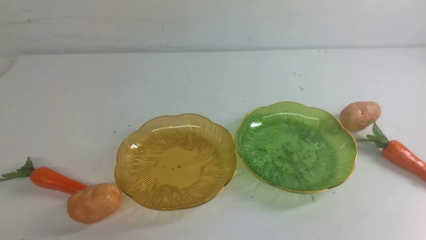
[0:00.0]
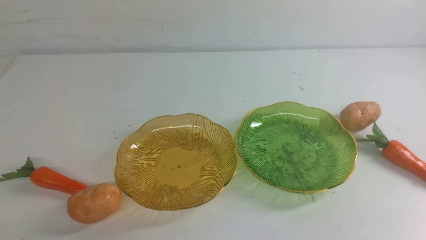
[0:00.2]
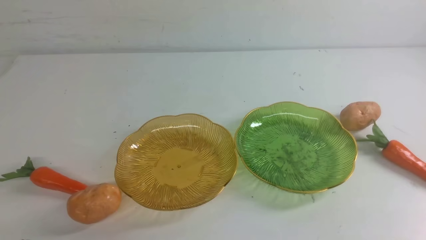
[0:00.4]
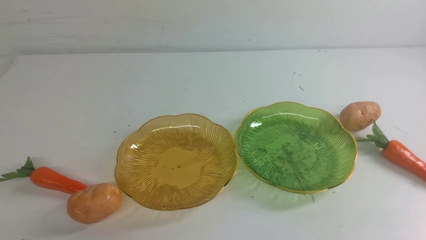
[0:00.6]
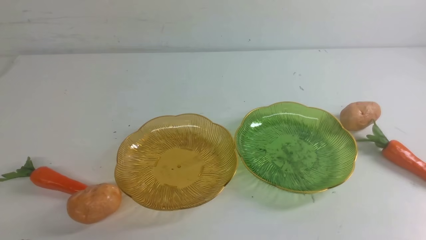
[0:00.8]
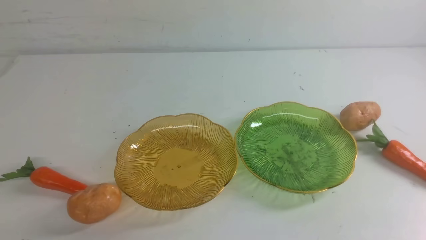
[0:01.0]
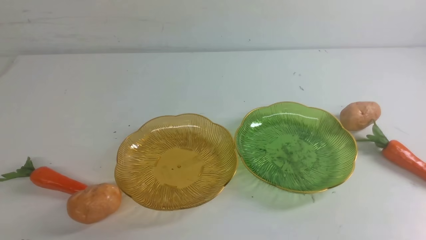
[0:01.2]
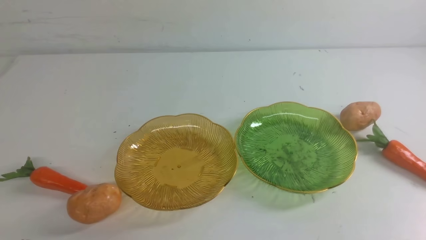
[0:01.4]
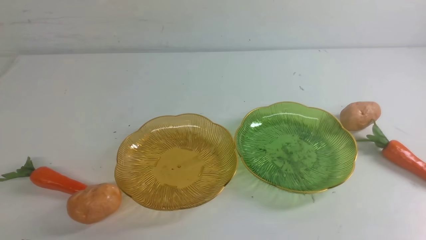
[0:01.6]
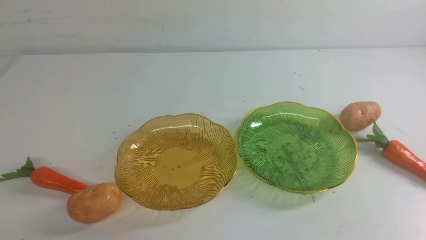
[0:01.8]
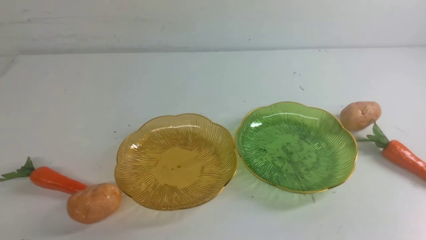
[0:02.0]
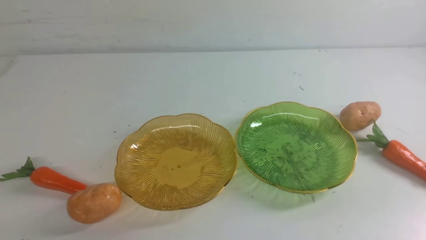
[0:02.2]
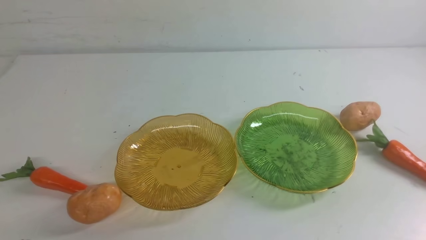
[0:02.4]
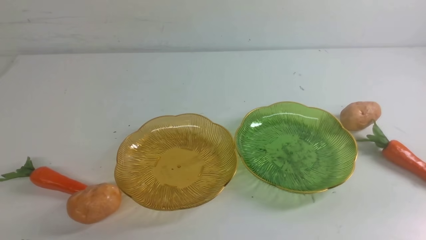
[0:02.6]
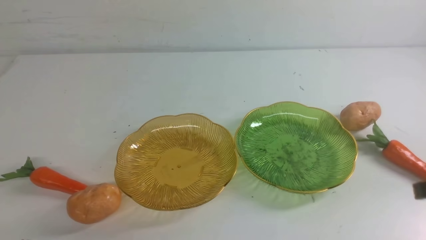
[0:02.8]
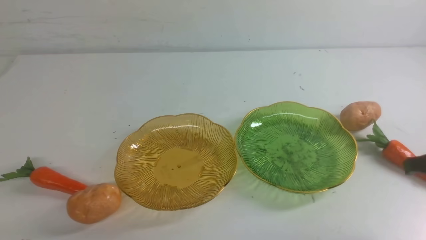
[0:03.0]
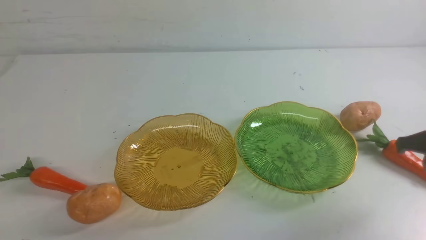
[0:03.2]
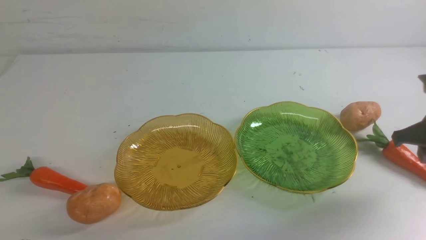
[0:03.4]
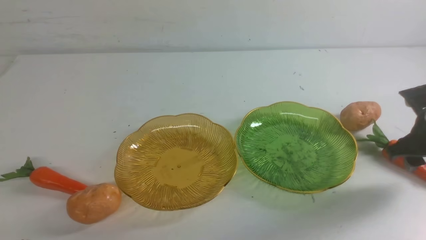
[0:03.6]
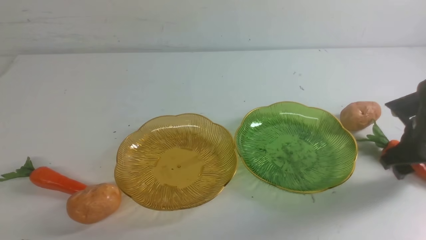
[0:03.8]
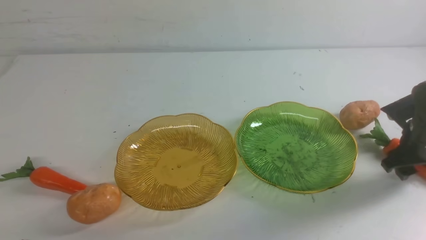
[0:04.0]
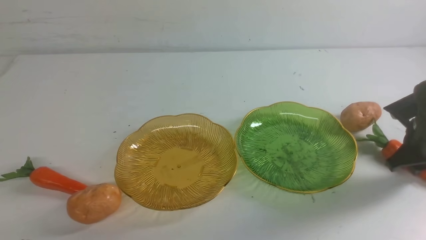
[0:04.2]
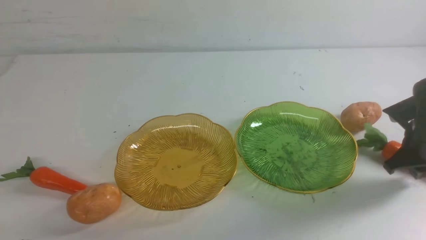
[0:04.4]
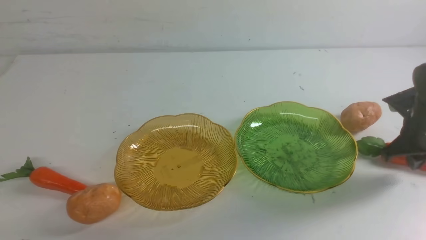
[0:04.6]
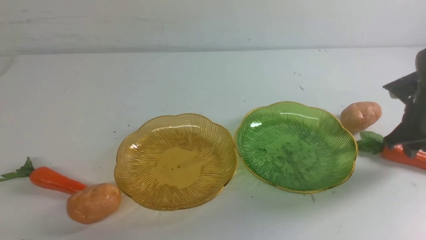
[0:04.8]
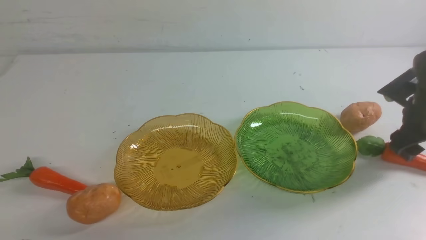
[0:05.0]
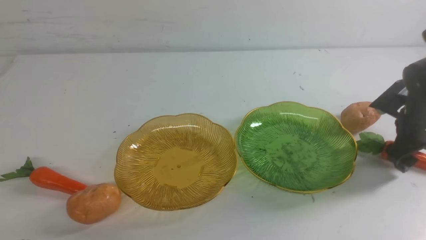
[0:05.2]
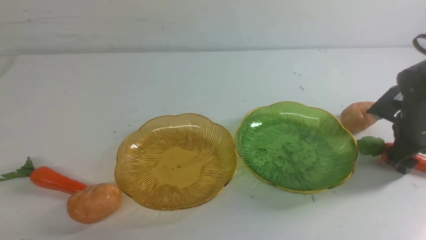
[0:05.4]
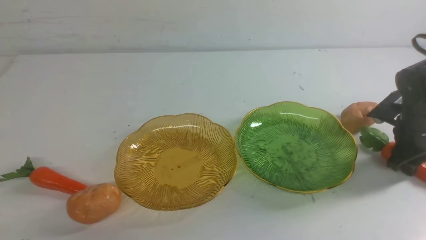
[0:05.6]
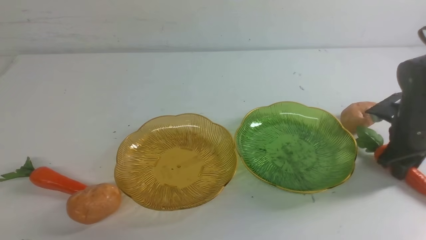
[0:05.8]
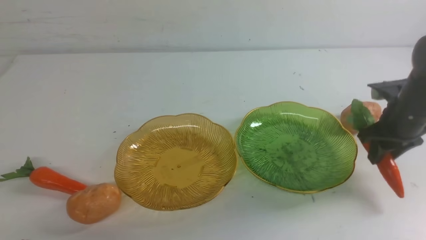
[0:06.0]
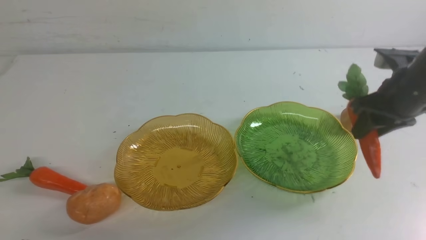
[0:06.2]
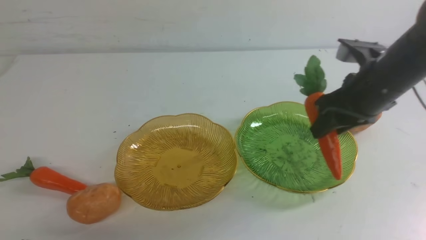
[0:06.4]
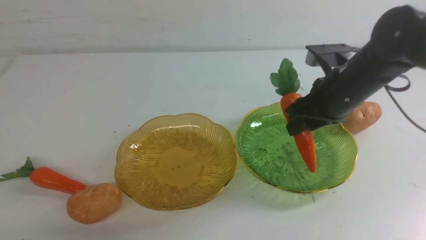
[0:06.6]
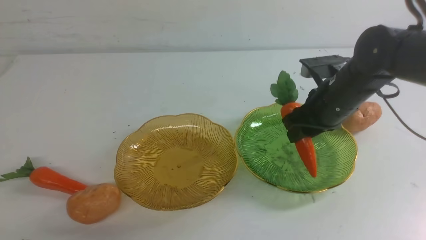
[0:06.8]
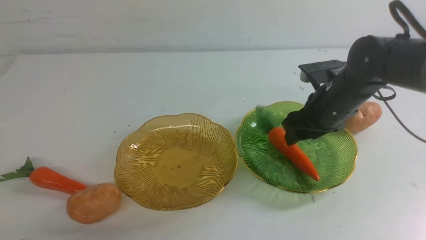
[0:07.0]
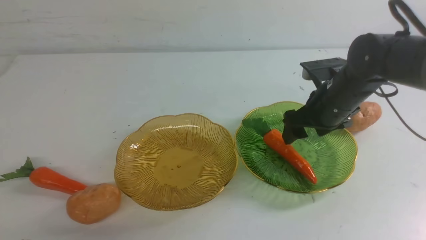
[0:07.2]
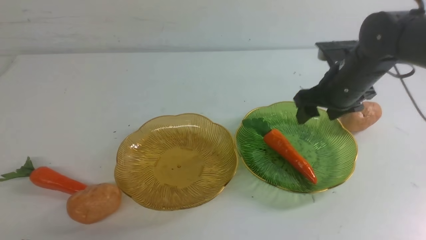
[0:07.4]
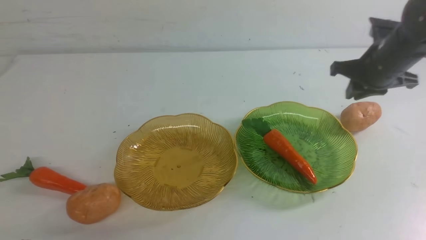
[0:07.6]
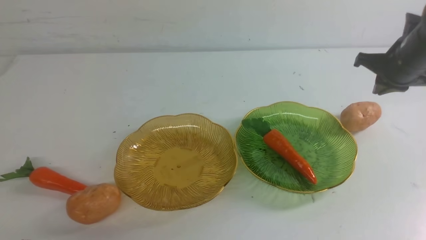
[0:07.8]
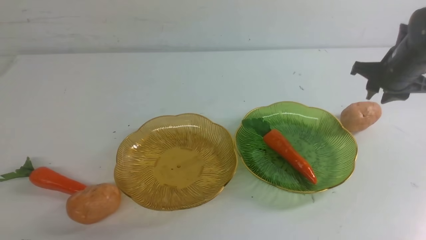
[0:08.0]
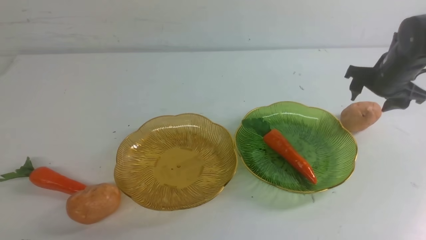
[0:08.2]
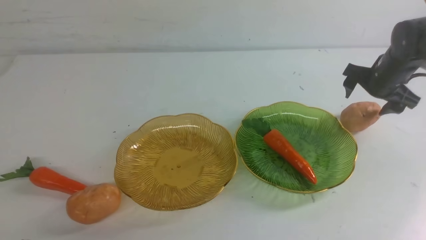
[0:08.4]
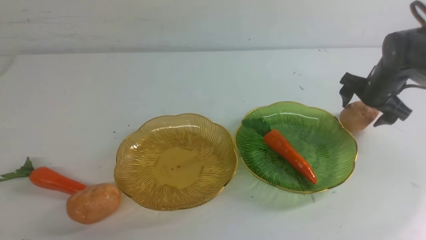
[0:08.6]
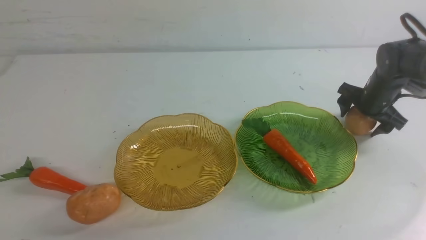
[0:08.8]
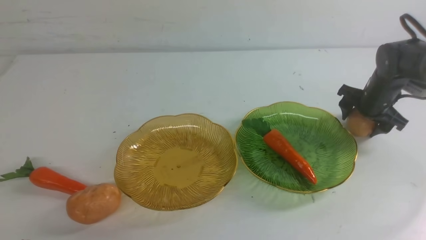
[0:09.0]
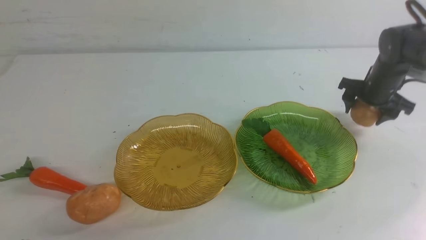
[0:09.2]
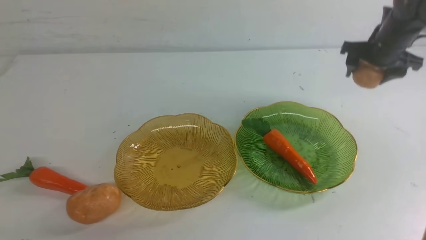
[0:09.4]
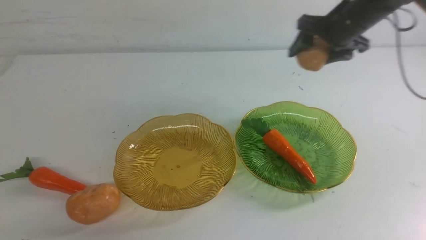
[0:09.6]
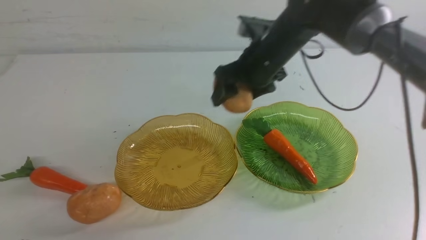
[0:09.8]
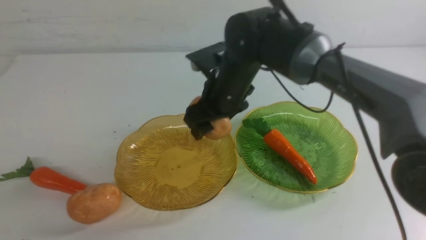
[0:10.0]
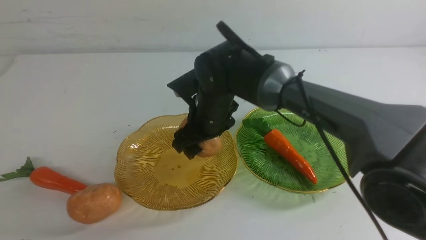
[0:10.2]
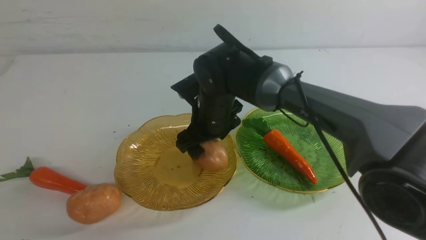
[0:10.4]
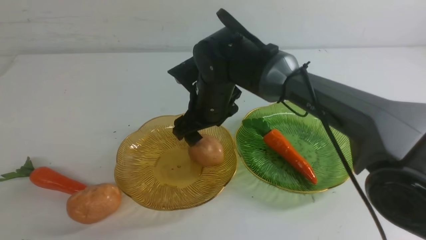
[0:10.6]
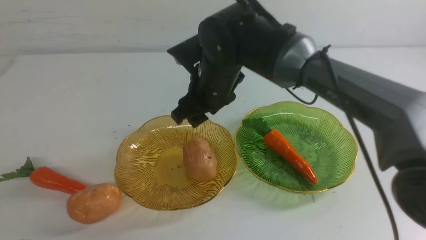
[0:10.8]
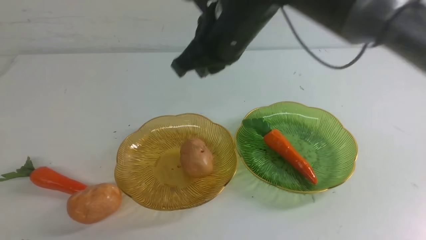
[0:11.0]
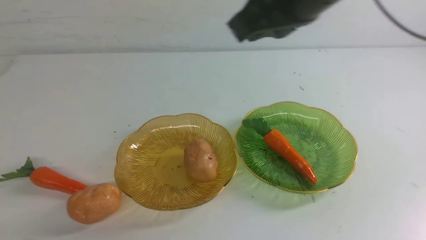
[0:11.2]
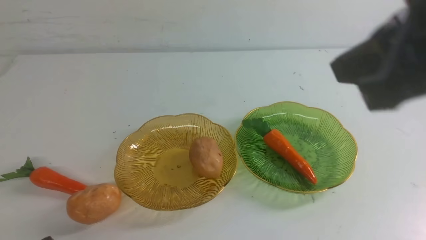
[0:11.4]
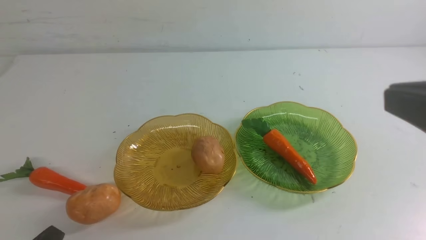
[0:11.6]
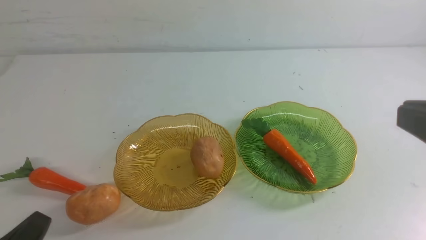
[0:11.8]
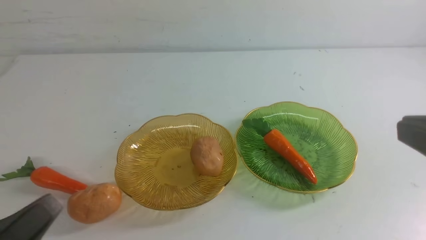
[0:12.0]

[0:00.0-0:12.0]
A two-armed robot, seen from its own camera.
Step, 0:00.0 to 0:07.2: use the right arm to grab a carrot and put it into the right plate.
Step, 0:07.4 to 0:10.6: Grab a potato with your right arm and put it on the left plate.
0:03.0 to 0:04.4: The right gripper shifts approximately 15 cm forward and downward, and opens, then closes again.
0:04.4 to 0:06.0: The right gripper shifts by some 5 cm, and opens, then closes again.
0:06.0 to 0:07.6: The right gripper shifts some 5 cm forward, reaches roughly 10 cm to the left, then returns, and opens, then closes once more.
0:07.6 to 0:09.0: The right gripper travels downward and forward by roughly 10 cm, and opens.
0:09.0 to 0:10.4: The right gripper heads to the left, covering some 30 cm.
0:10.4 to 0:12.0: The right gripper shifts some 40 cm backward, to the right and upward, and closes up, while the left gripper is displaced upward by roughly 10 cm.

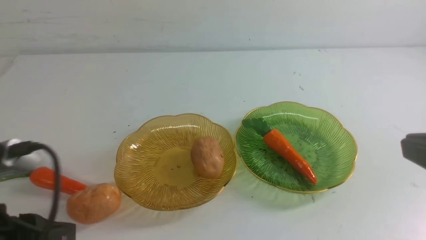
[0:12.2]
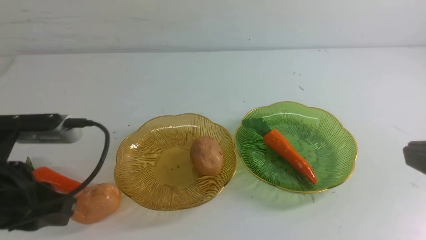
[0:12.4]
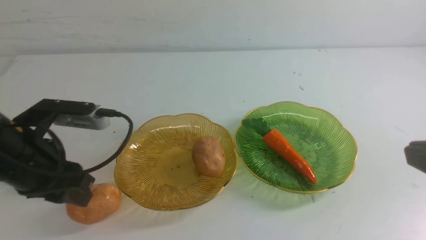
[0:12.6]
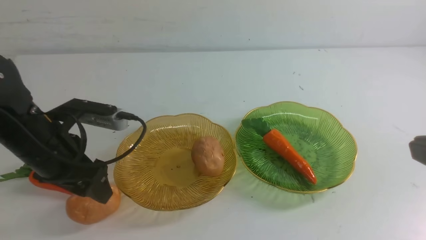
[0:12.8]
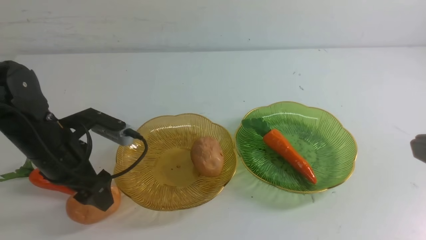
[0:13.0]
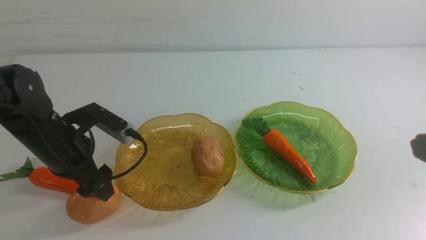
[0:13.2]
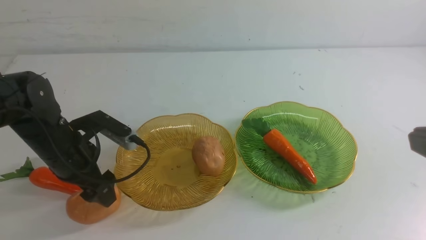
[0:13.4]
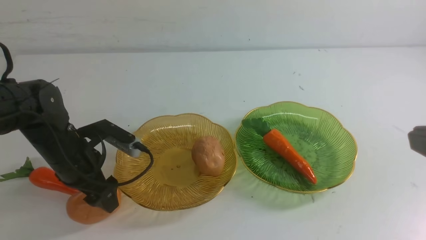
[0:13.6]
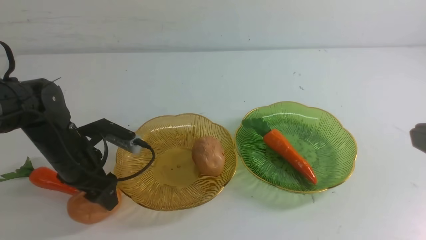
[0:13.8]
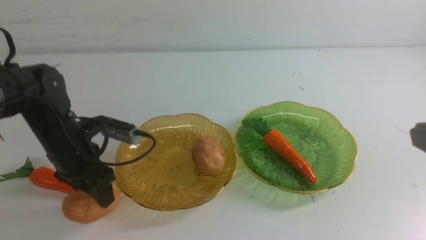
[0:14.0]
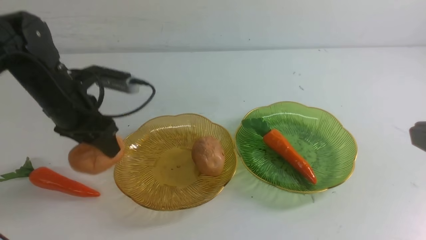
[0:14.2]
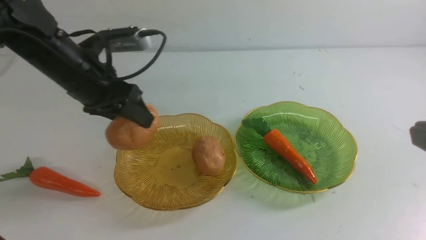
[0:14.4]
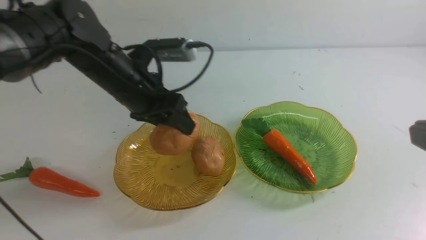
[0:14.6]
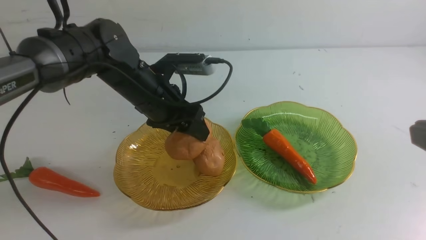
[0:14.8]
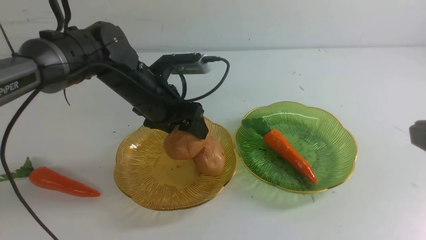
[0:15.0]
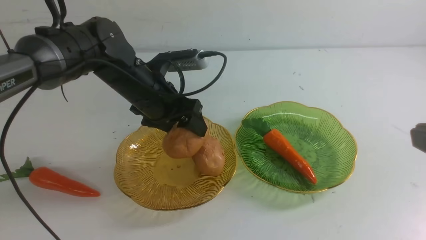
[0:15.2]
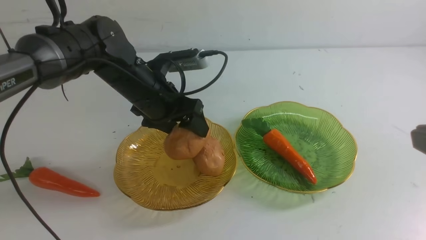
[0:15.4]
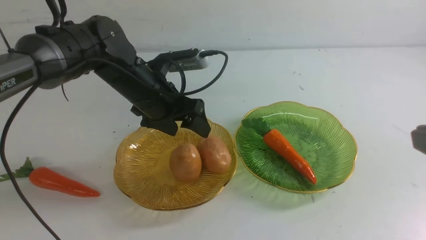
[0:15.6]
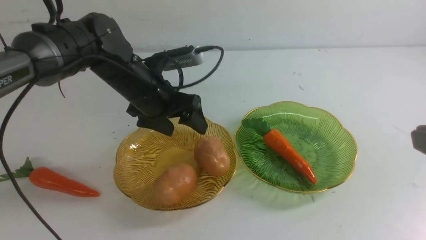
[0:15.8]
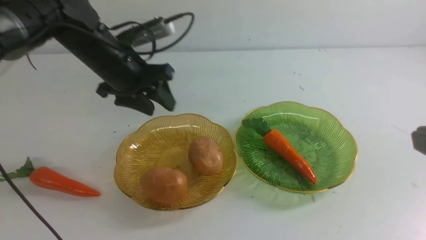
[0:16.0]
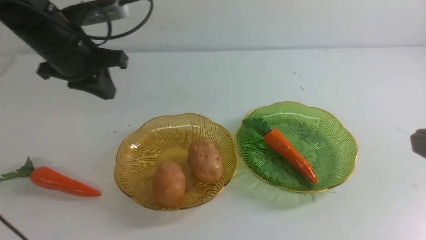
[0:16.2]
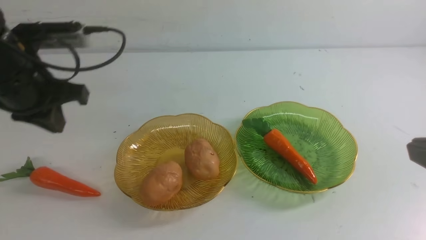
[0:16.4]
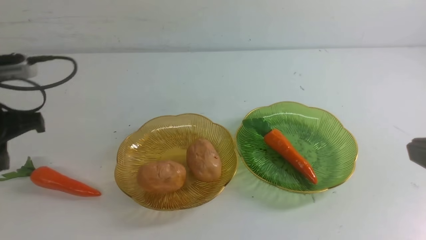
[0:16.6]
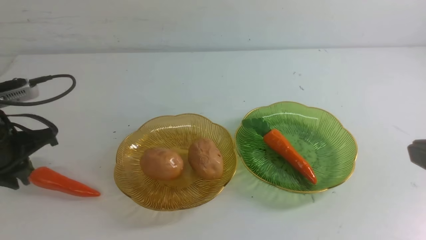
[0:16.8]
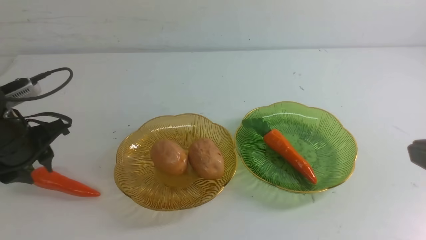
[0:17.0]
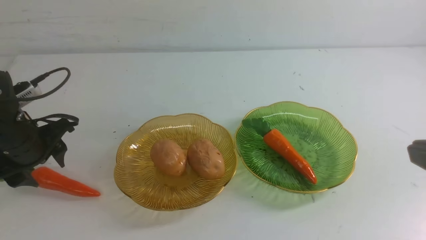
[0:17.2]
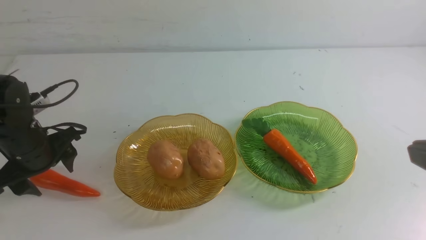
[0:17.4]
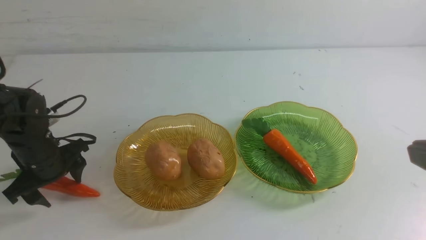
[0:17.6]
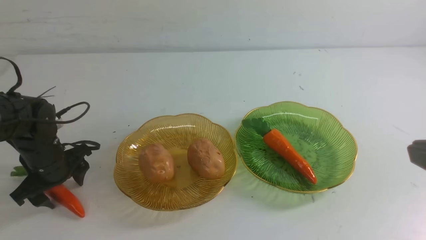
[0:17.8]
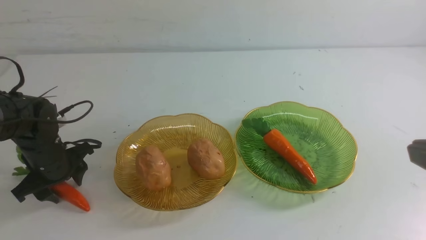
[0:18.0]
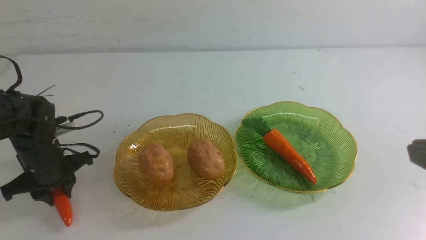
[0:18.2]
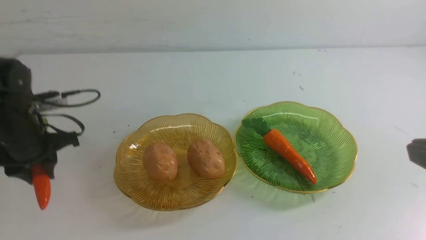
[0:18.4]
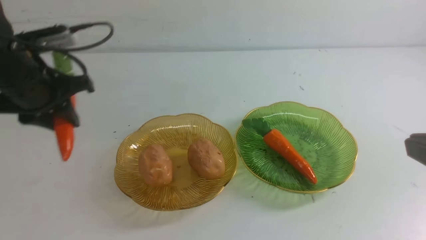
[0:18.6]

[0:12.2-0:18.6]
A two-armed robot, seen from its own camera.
Step, 0:12.2 to 0:15.8: Grab a potato with your left arm and put it on the left plate.
0:12.2 to 0:13.8: The left gripper is displaced forward and downward by roughly 25 cm, and opens its fingers.
0:13.8 to 0:15.4: The left gripper is displaced to the right, upward and forward by approximately 15 cm.
0:15.4 to 0:17.0: The left gripper heads to the left and backward, covering roughly 20 cm, and closes up.
0:17.0 to 0:18.6: The left gripper is displaced to the right, upward and forward by about 15 cm, and opens and closes again.
